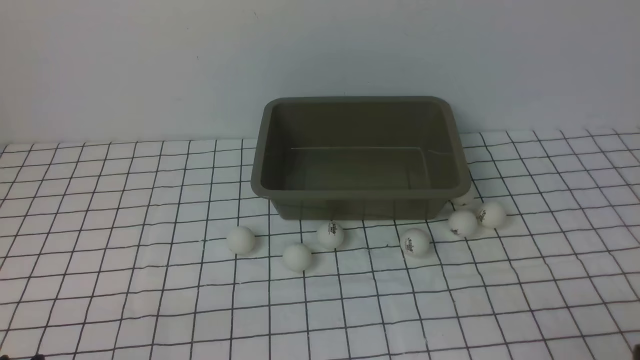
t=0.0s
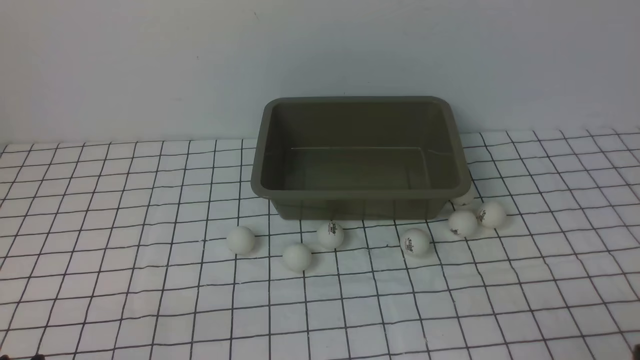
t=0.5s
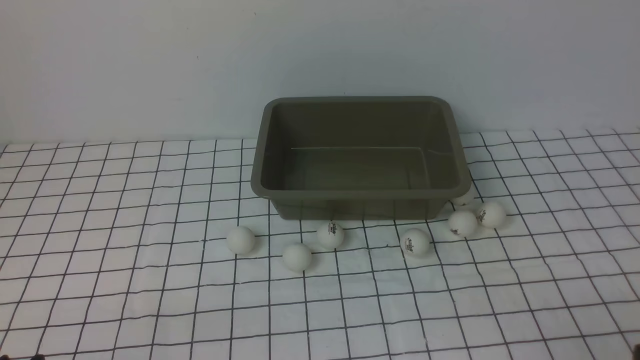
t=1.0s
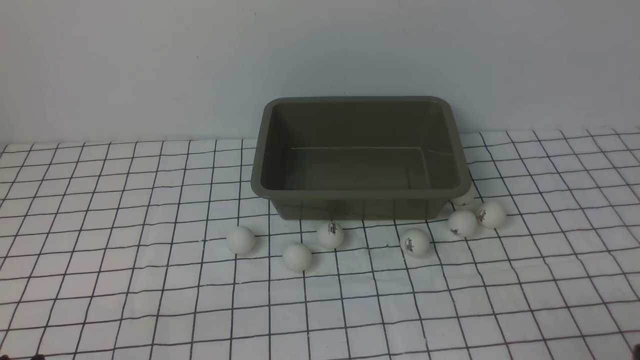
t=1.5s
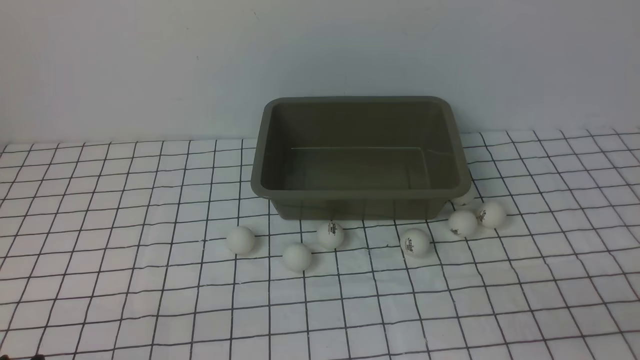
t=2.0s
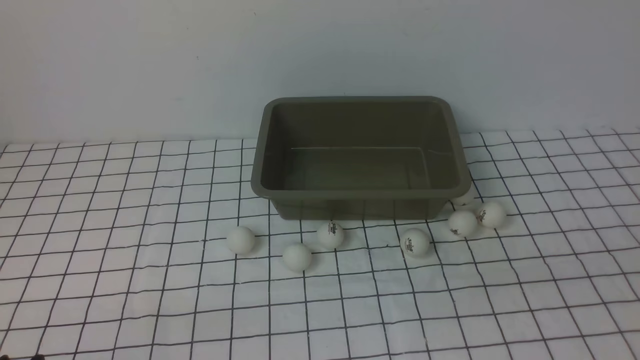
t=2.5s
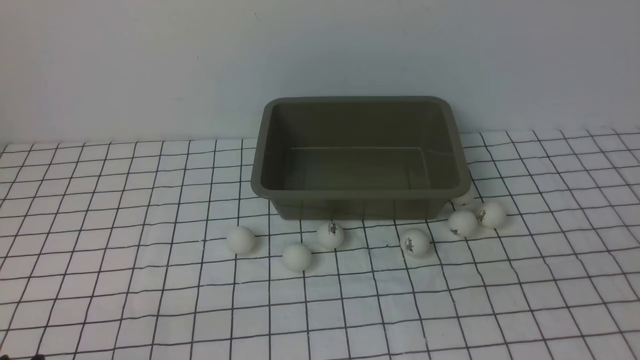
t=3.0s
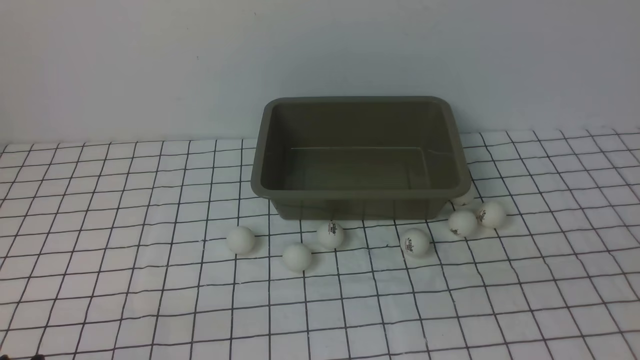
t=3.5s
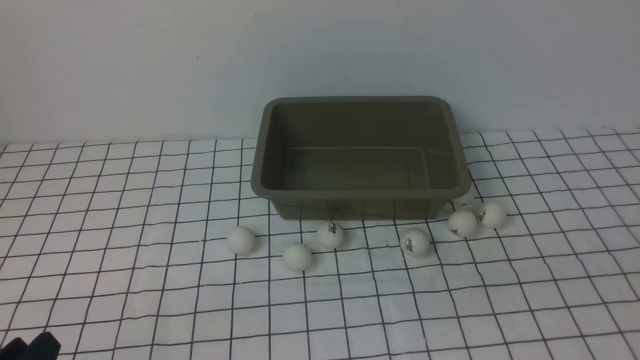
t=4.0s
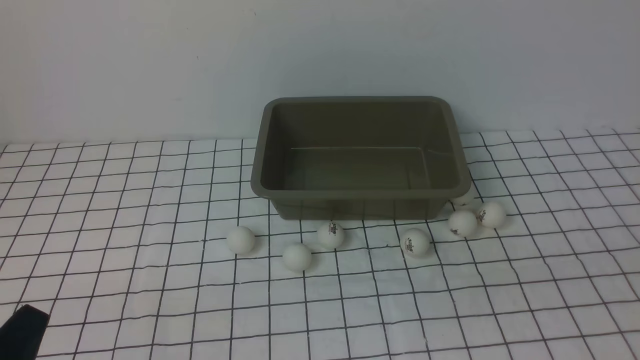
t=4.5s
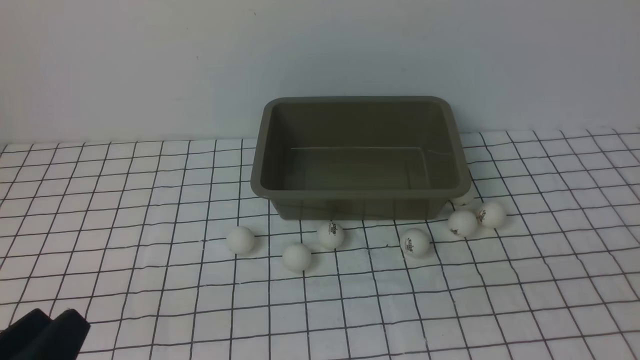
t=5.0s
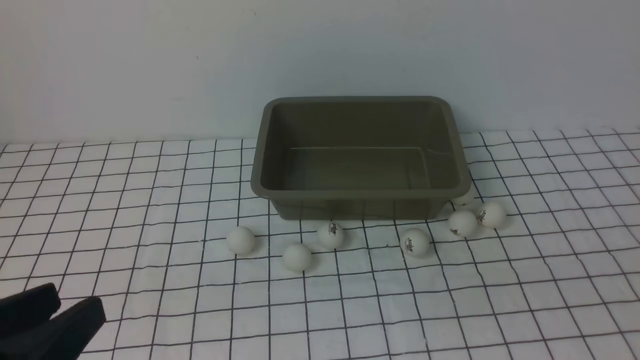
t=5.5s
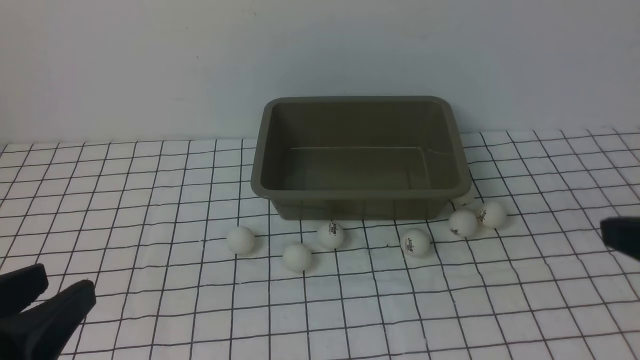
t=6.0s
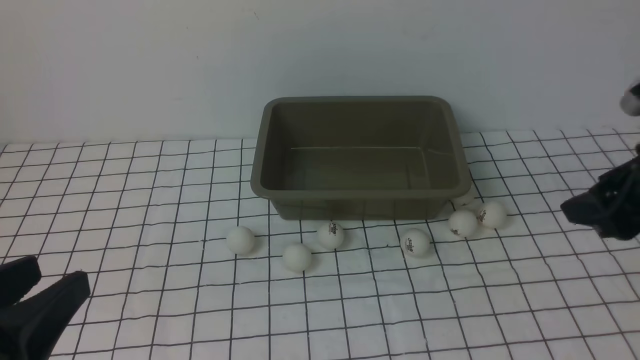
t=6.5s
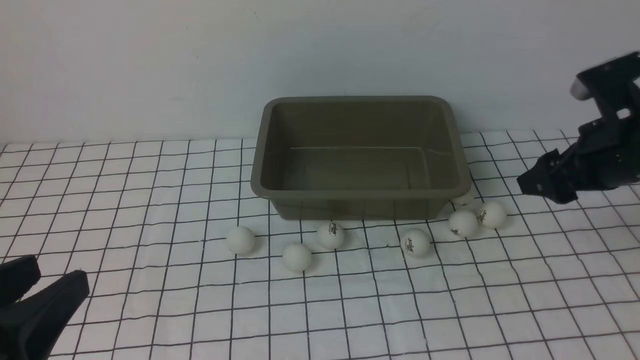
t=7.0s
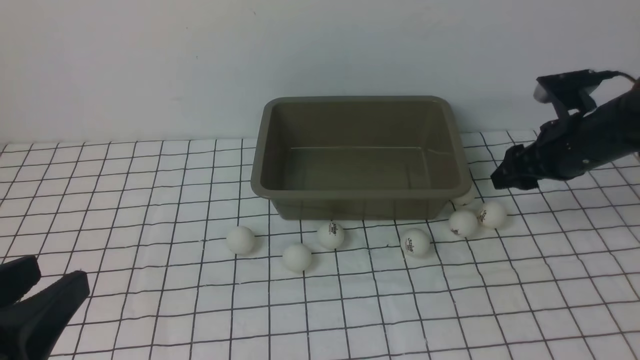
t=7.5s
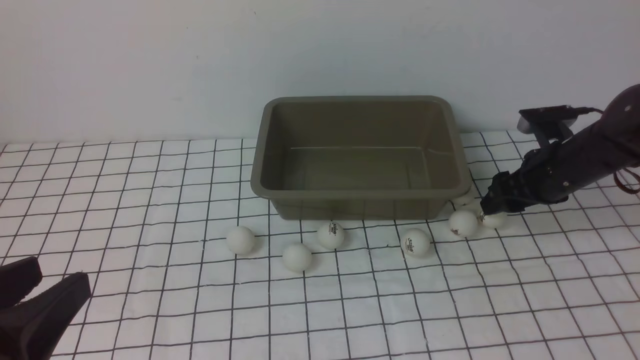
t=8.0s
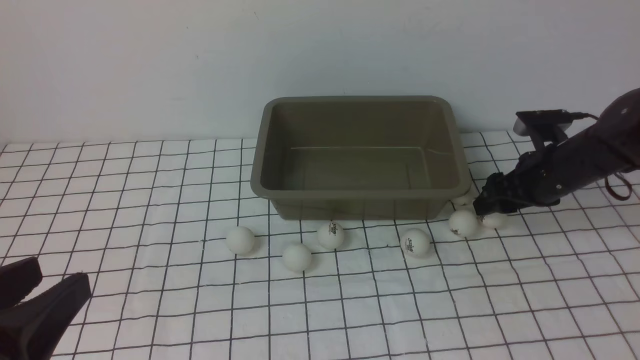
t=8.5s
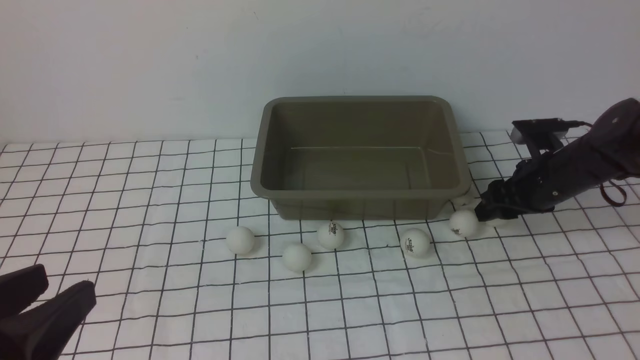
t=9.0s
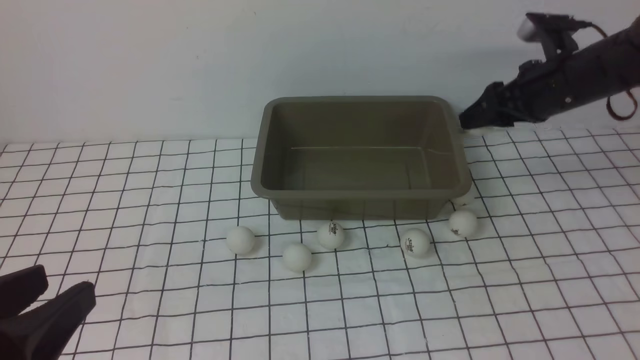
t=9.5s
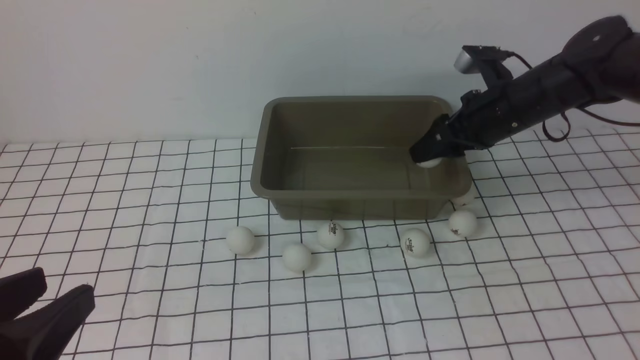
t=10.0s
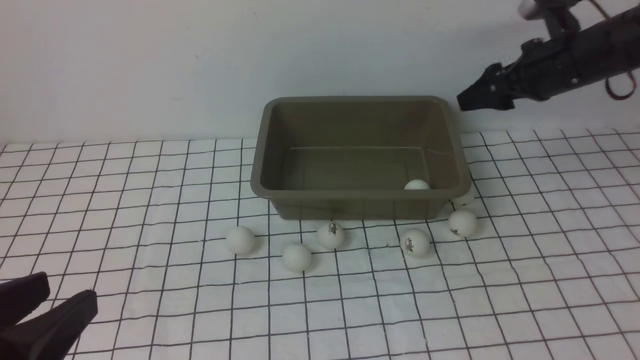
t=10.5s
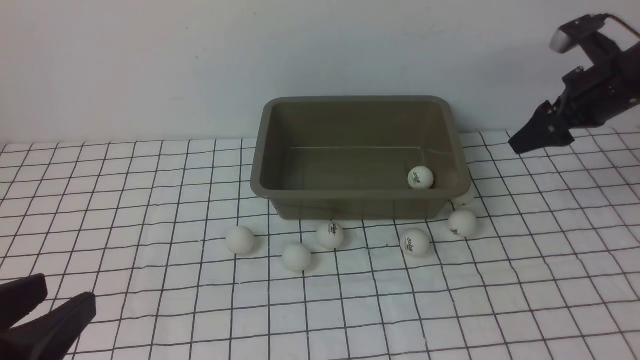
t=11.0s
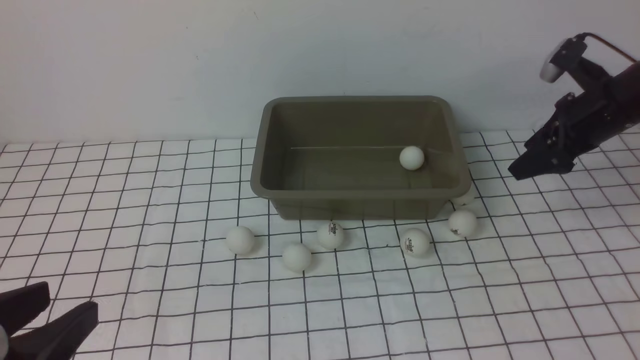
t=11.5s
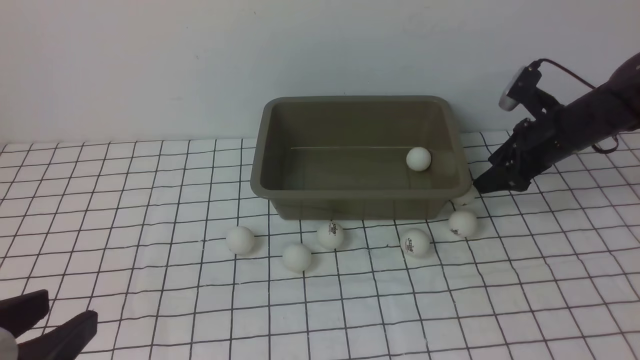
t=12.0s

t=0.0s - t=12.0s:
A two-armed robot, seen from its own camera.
Step, t=0.0s - t=9.0s: use the right arm to clamp the table tennis ball closest to it.
Step, t=9.5s - t=10.0s: use the right arm to put the table tennis ball into the box.
t=4.0s - t=6.0s: The left gripper heads upward, covering roughly 10 cm.
t=6.0s - t=8.0s: The right gripper moves forward and downward, roughly 30 cm.
t=8.0s - t=10.0s: The right gripper travels upward and to the left by roughly 10 cm, and closes, then opens again.
t=10.0s - t=12.0s: The right gripper travels to the right by roughly 10 cm.

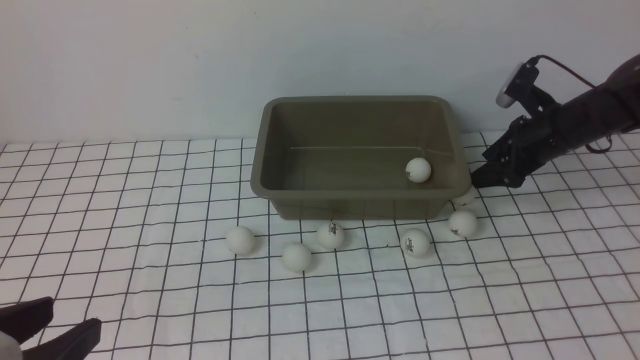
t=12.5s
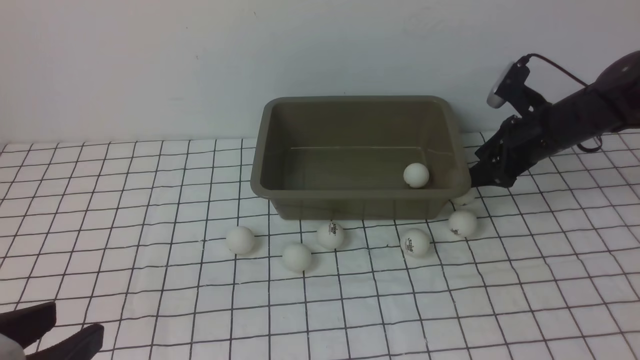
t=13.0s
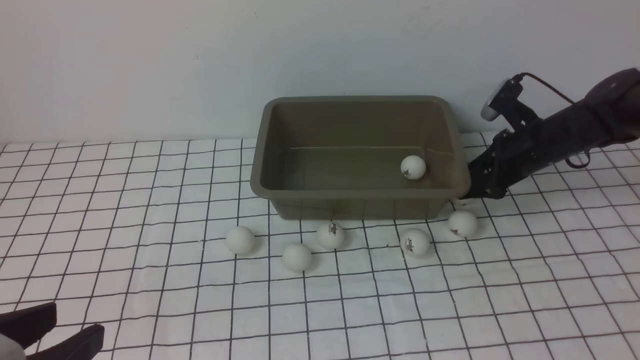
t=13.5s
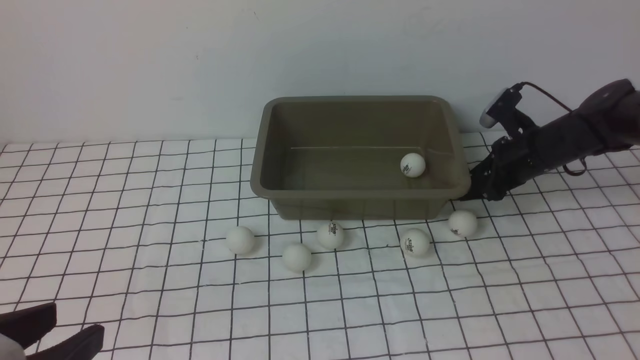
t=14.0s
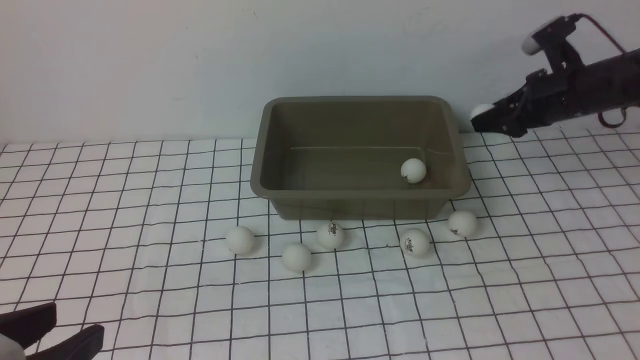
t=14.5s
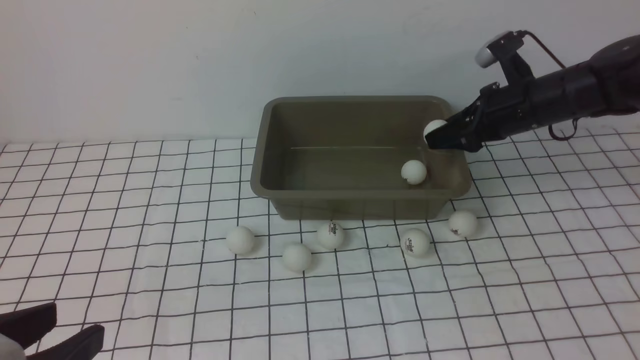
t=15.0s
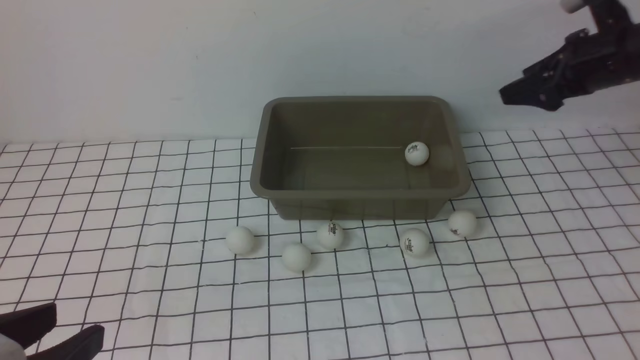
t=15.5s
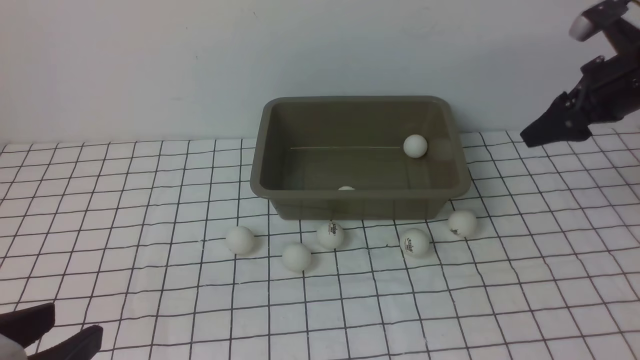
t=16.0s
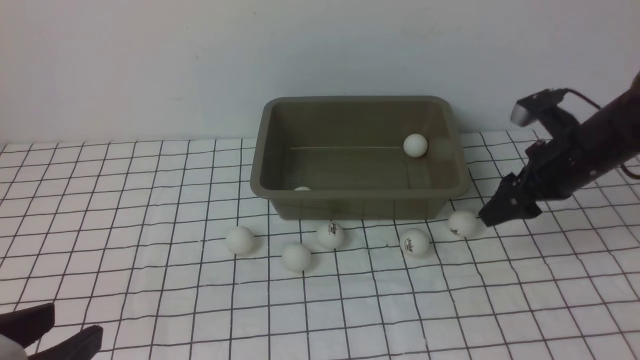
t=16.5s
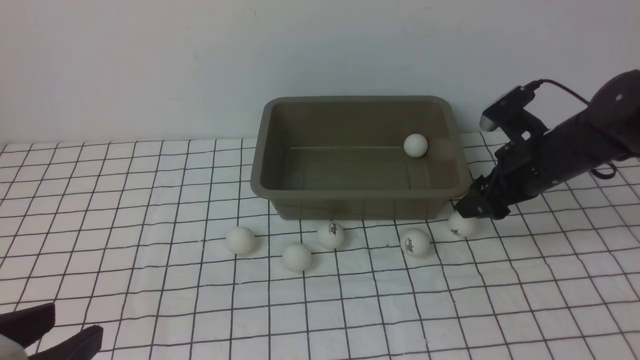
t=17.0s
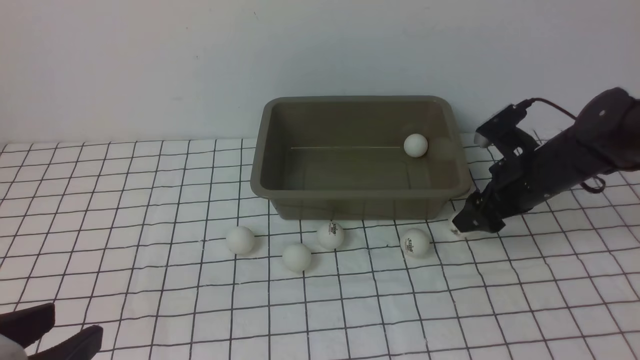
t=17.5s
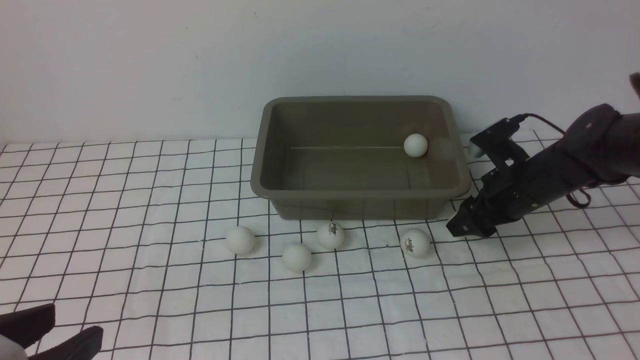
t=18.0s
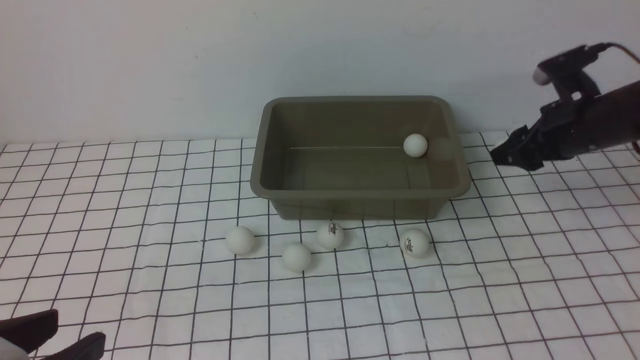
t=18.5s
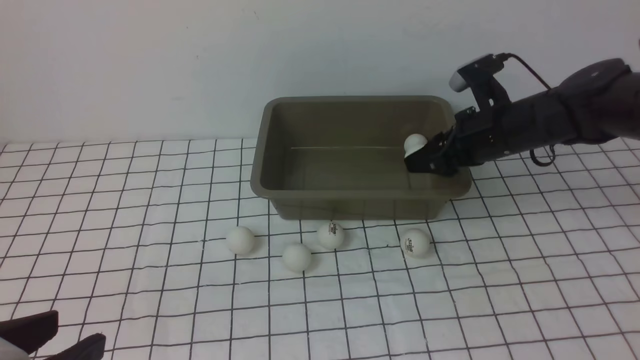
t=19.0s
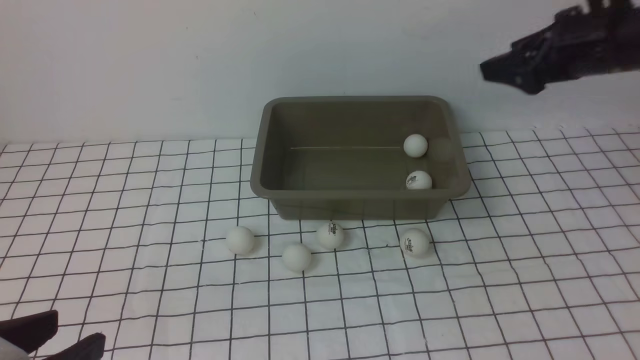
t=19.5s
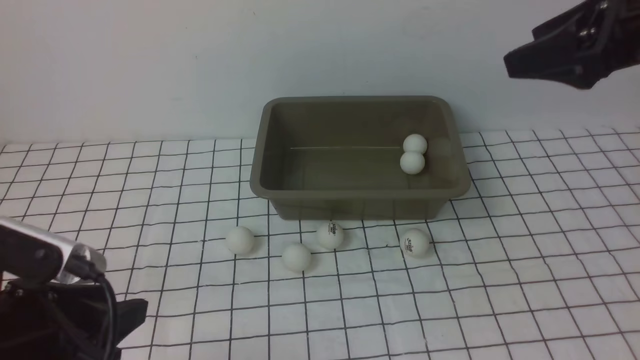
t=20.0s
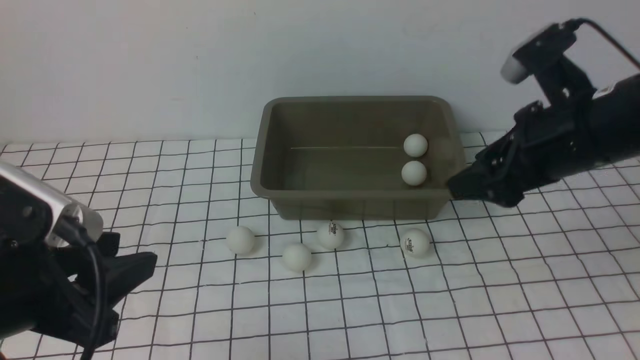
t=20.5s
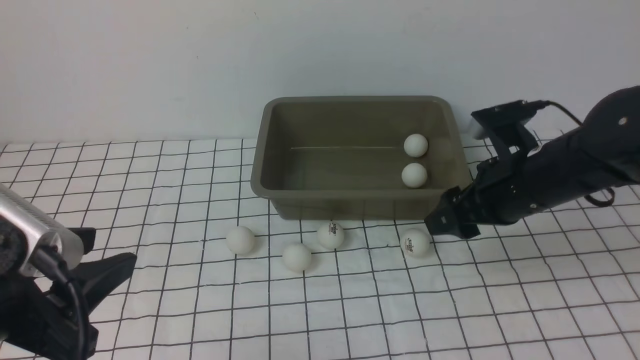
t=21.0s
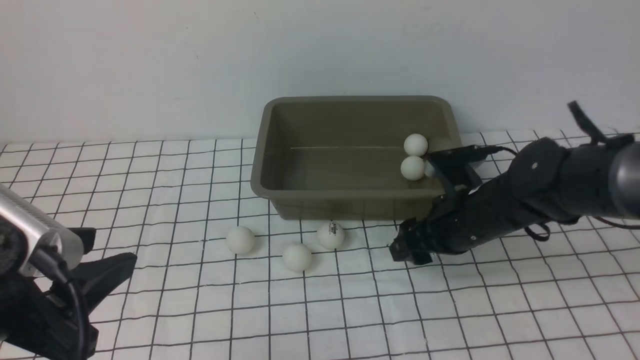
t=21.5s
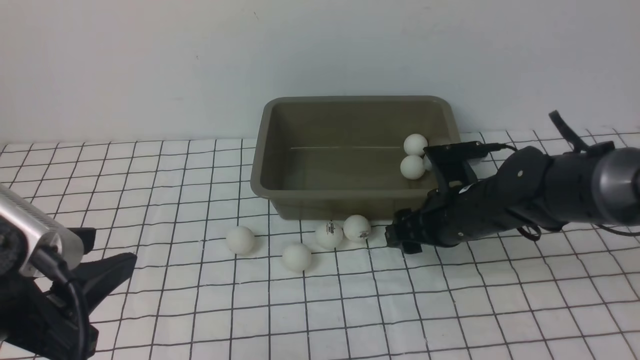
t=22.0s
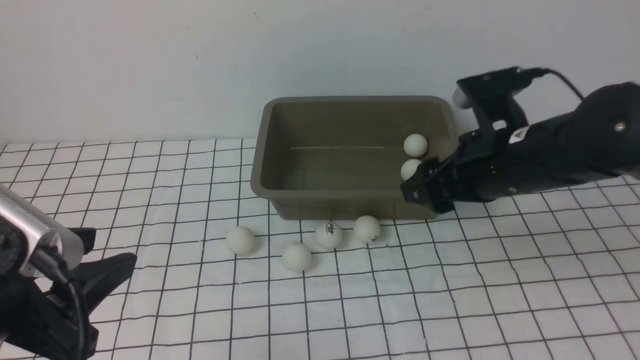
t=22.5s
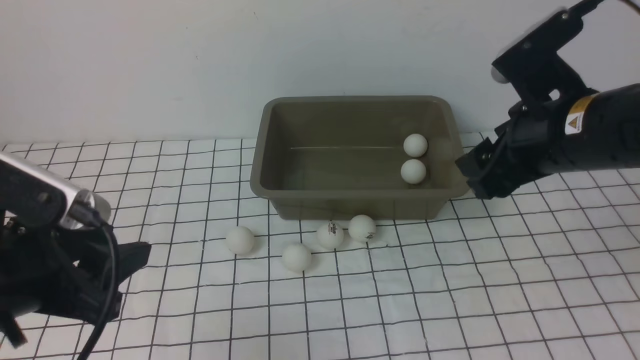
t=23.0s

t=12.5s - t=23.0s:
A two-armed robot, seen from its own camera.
Step, t=15.5s - t=18.0s: use the right arm to clamp the table tennis ball closest to it.
Step, t=18.5s - t=19.0s: use the right arm to put the table tennis ball into the box.
t=12.5s - t=14.5s: The right gripper closes its fingers.
t=14.5s - t=16.5s: The right gripper moves backward, about 10 cm, and opens its fingers.
t=16.5s - t=19.0s: The right gripper heads to the left, covering roughly 5 cm, and closes its fingers.
t=19.0s - t=21.0s: The left gripper moves forward, roughly 5 cm. Meanwhile the right gripper heads backward, covering roughly 10 cm, reaches roughly 15 cm upward, then returns, and opens.
t=21.0s - t=23.0s: The right gripper is displaced upward by some 10 cm.
